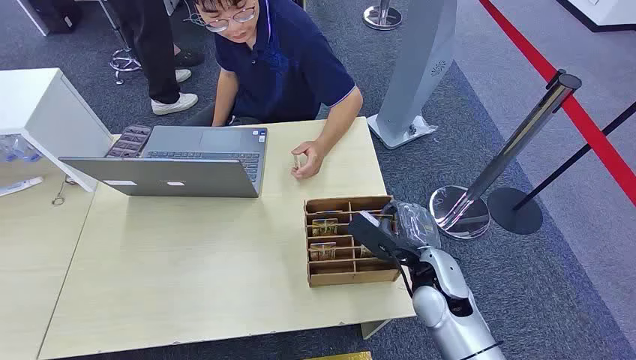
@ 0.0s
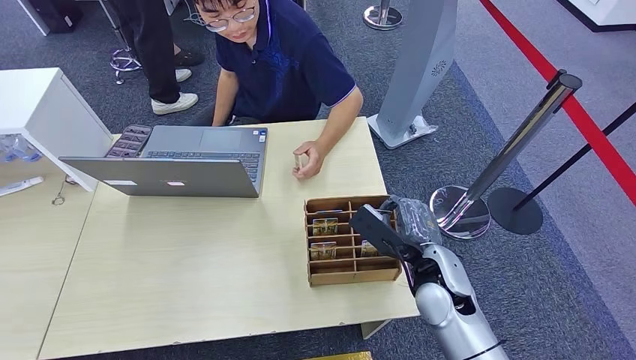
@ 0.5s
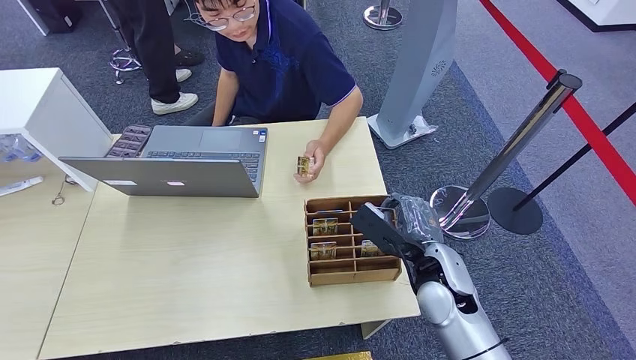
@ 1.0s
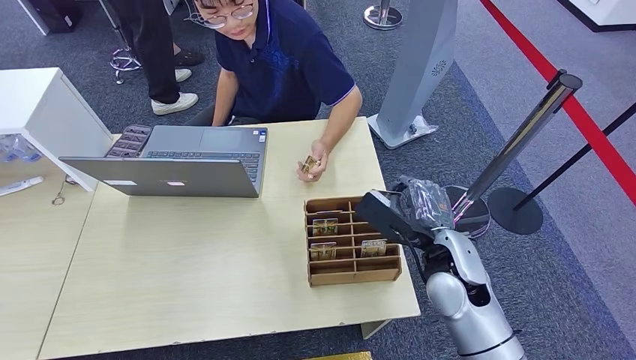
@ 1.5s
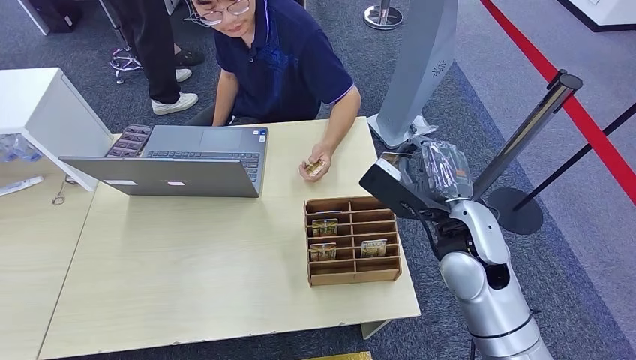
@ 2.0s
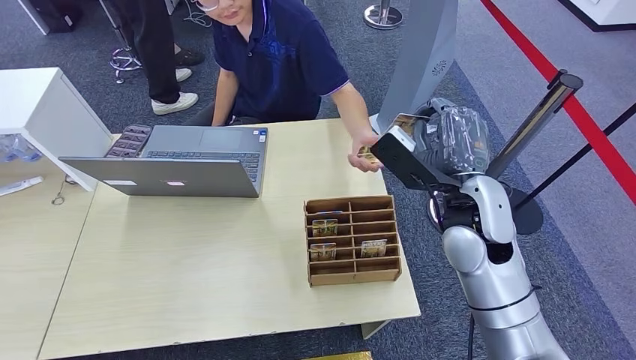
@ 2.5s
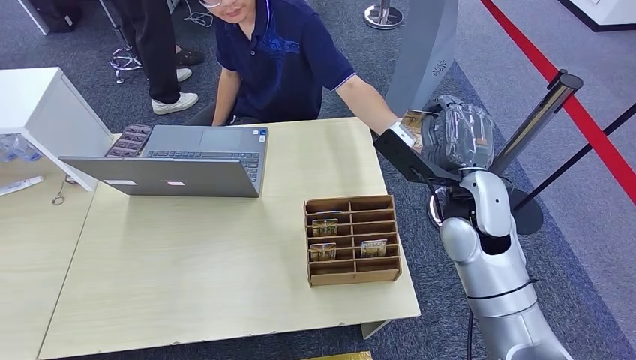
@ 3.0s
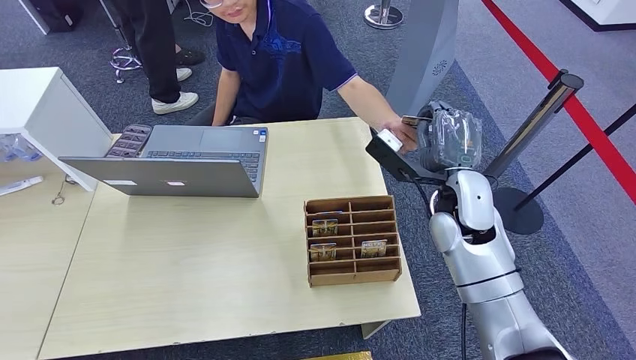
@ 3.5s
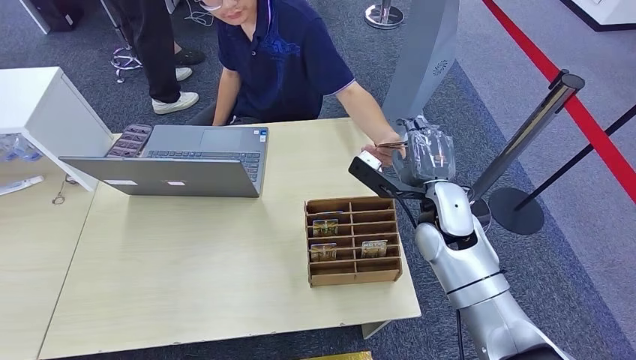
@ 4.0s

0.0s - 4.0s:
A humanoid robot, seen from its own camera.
Step, 0.0s - 1.5s: Pick up the key card from the card box.
2.0s - 4.0s: The right hand moves forward, roughly 5 cm.

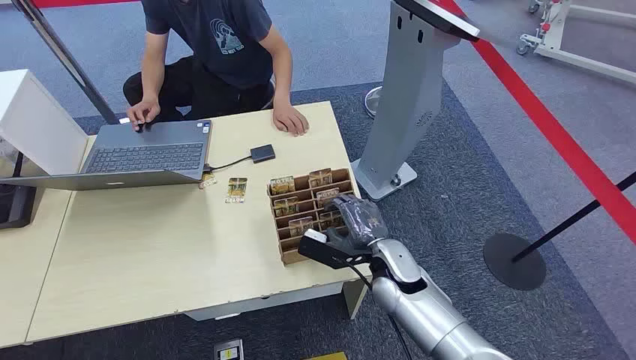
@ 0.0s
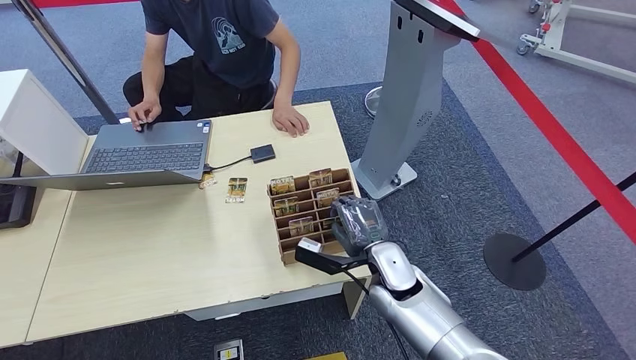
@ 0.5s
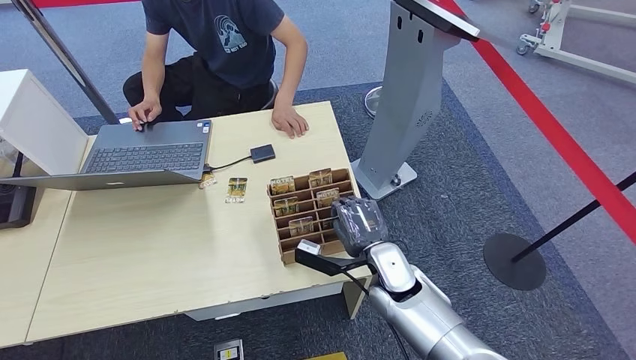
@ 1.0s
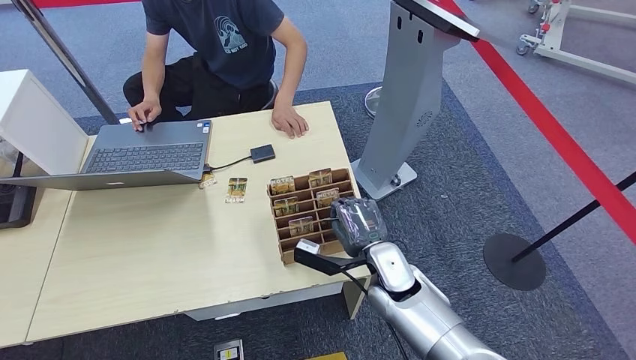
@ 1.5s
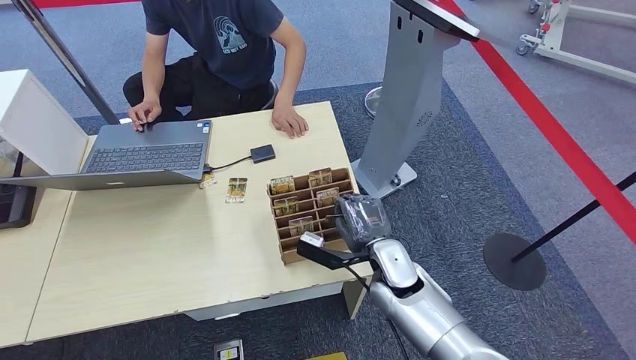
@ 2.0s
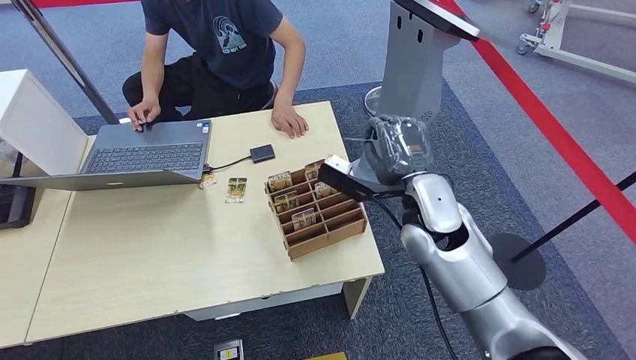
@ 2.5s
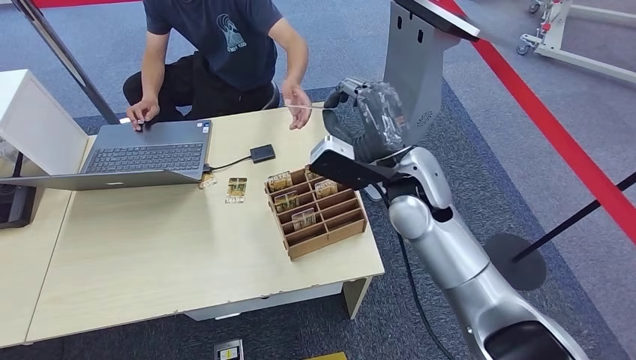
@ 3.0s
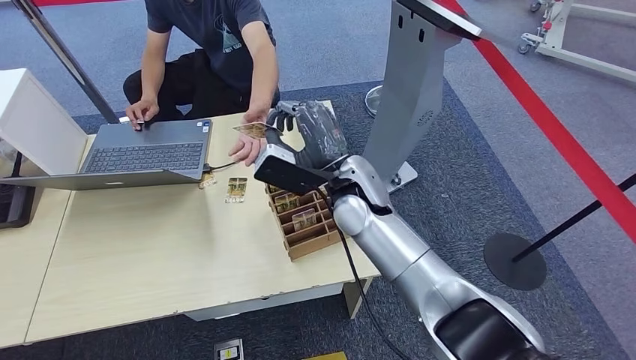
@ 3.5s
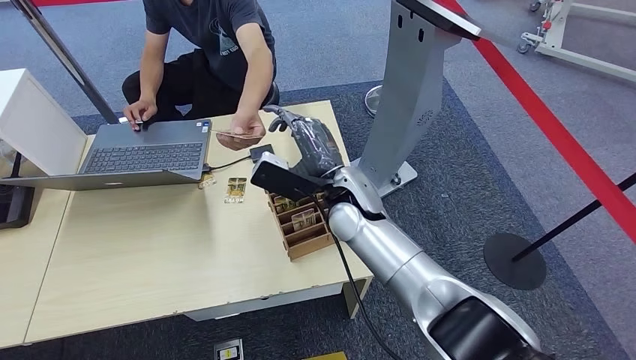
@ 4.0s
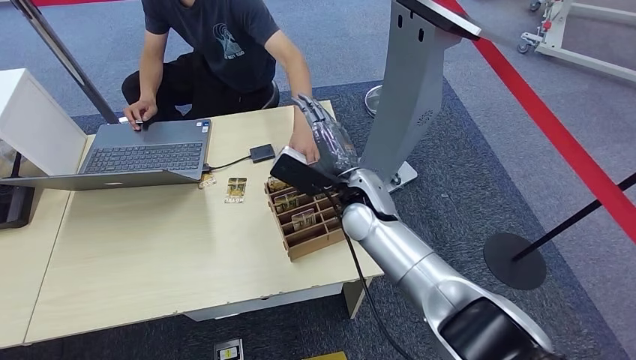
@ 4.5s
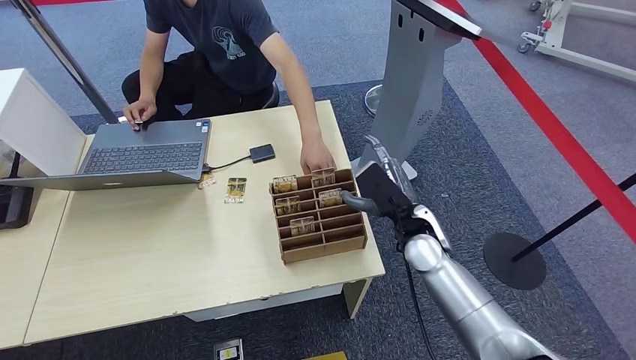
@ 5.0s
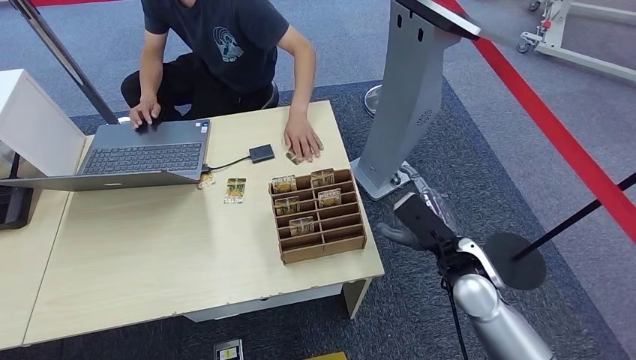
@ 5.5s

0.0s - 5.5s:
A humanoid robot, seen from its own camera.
Step, 0.0s - 2.5s: Pick up the key card from the card box.
Step, 3.0s - 5.5s: Hand the key card to the target.
2.0s - 3.5s: The right hand heads upward, forward and to the left, covering some 20 cm.
3.5s - 5.5s: The right hand goes roughly 25 cm to the right, backward and downward.

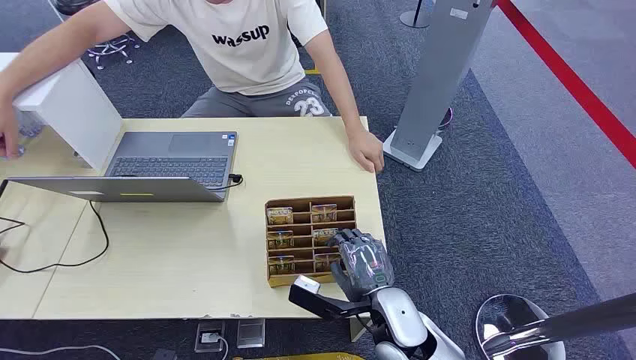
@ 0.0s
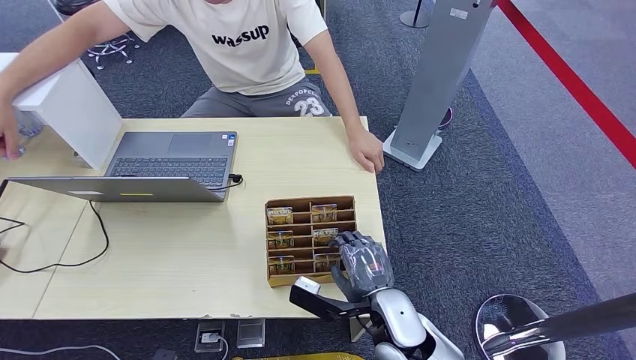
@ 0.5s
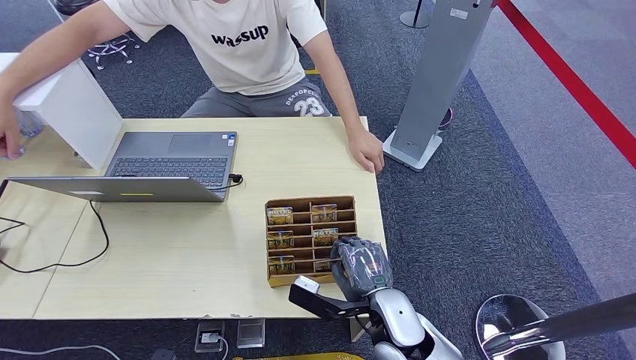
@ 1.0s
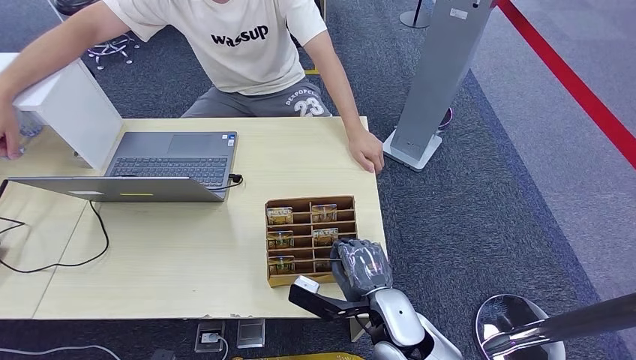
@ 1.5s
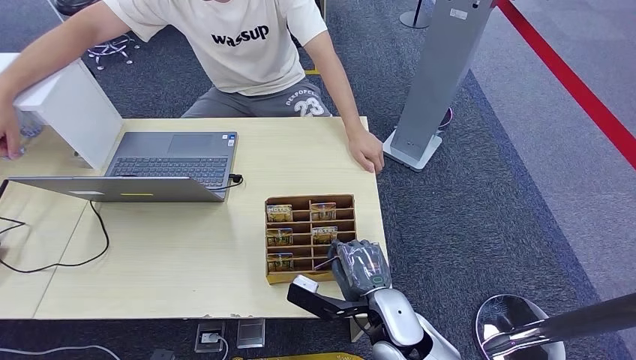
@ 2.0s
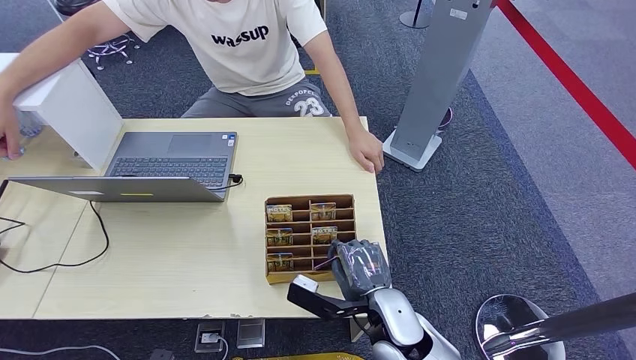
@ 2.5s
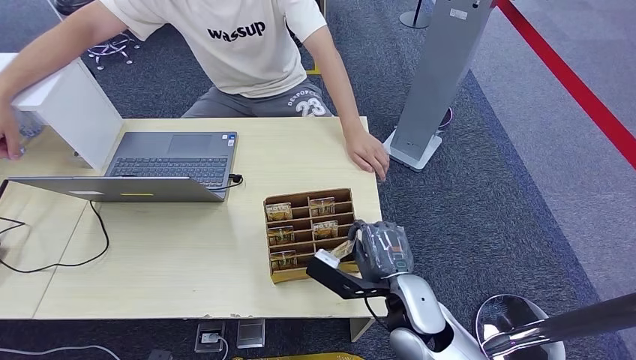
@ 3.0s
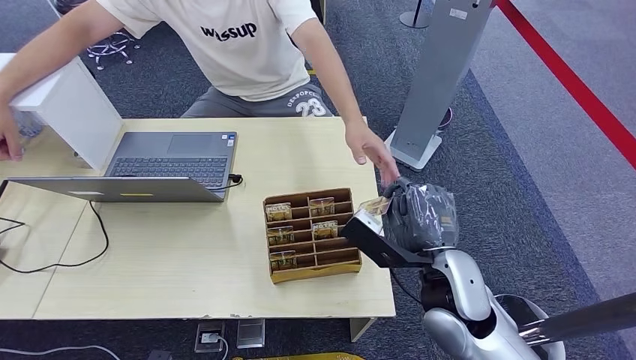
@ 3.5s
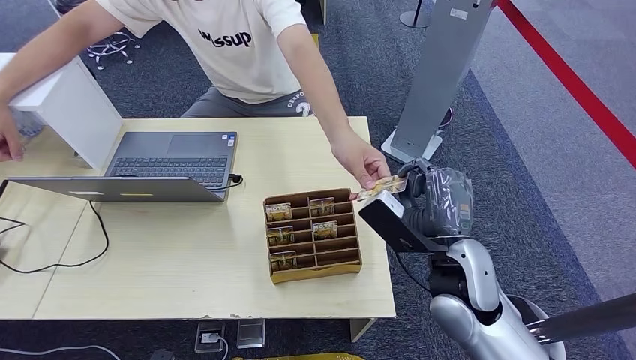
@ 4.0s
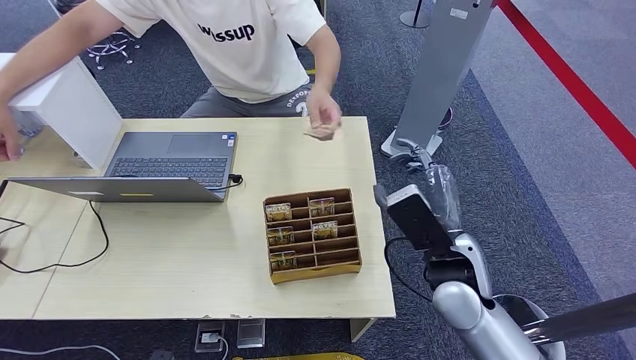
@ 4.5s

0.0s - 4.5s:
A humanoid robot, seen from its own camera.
Step, 0.0s - 2.5s: Pick up the key card from the card box.
Step, 3.5s - 4.0s: Hand the key card to the target.
2.0s - 4.5s: The right hand moves upward and to the right, approximately 15 cm.
